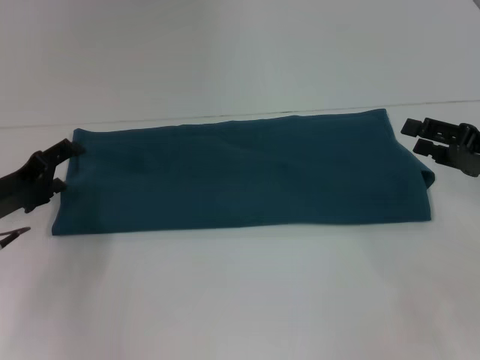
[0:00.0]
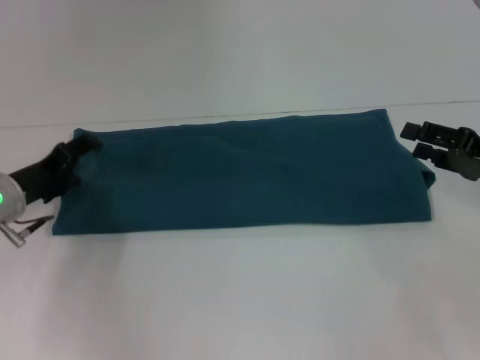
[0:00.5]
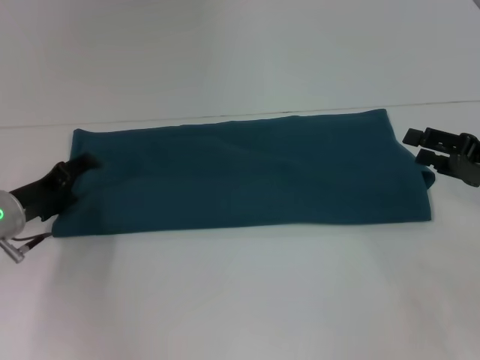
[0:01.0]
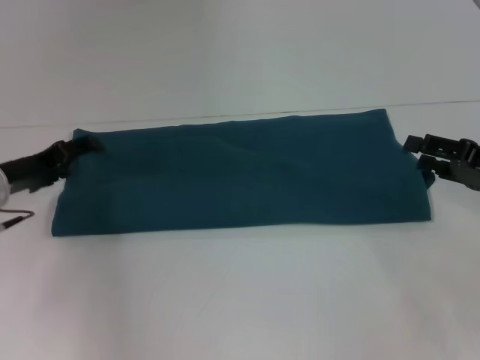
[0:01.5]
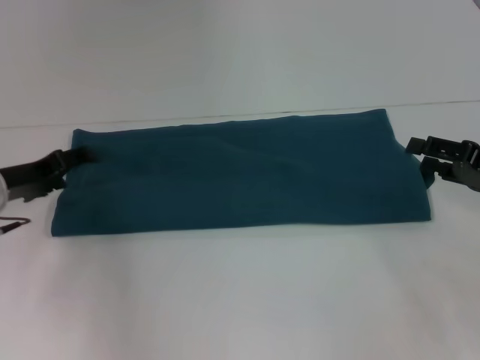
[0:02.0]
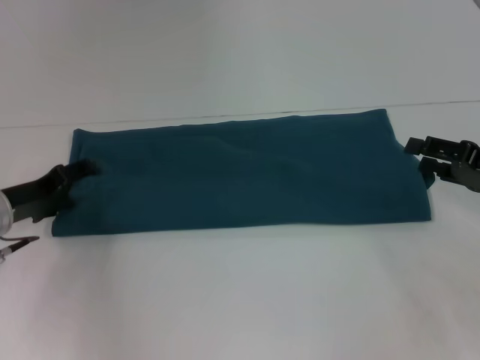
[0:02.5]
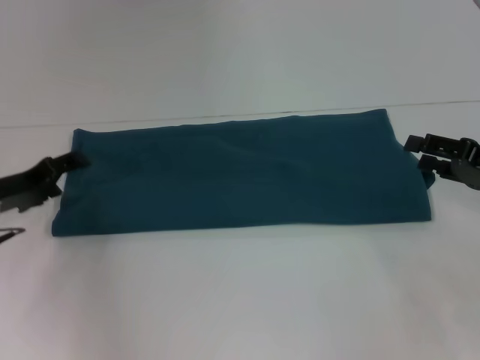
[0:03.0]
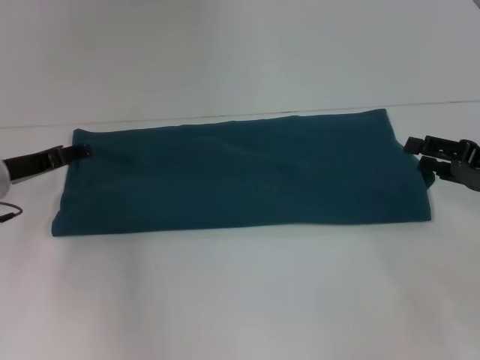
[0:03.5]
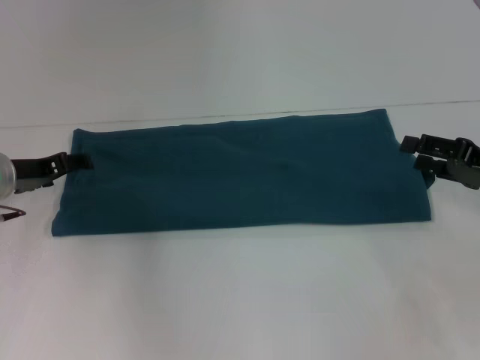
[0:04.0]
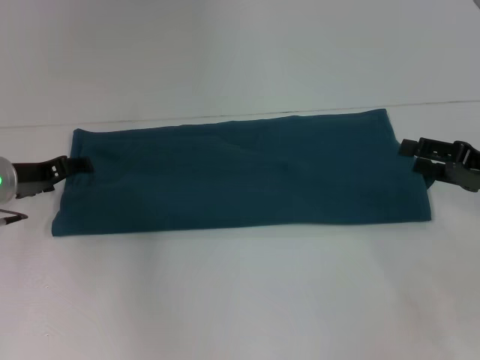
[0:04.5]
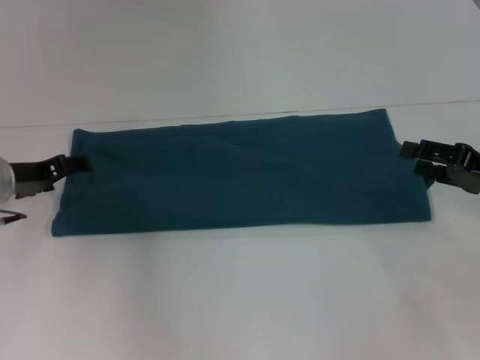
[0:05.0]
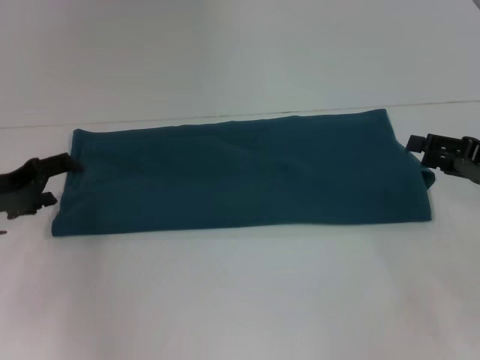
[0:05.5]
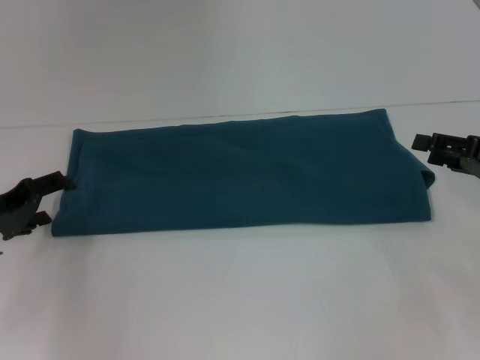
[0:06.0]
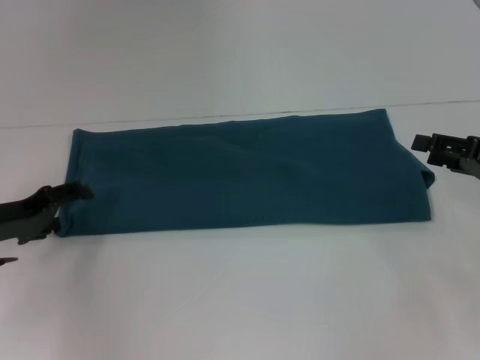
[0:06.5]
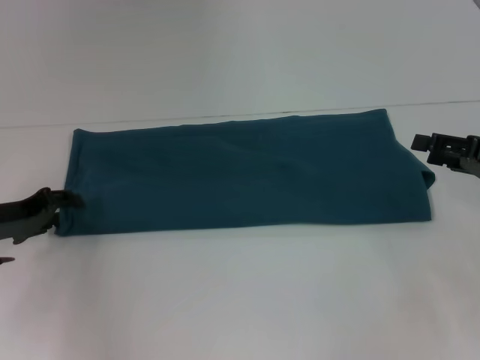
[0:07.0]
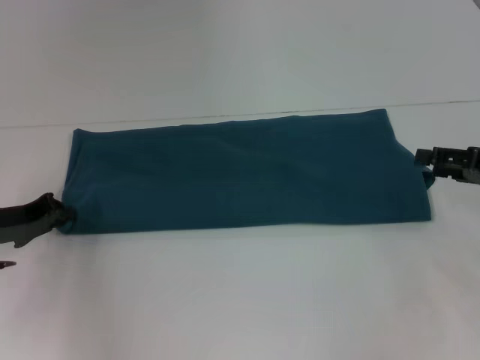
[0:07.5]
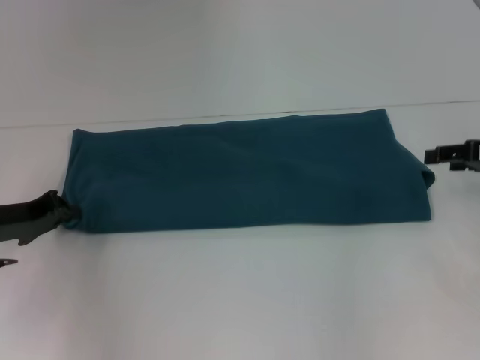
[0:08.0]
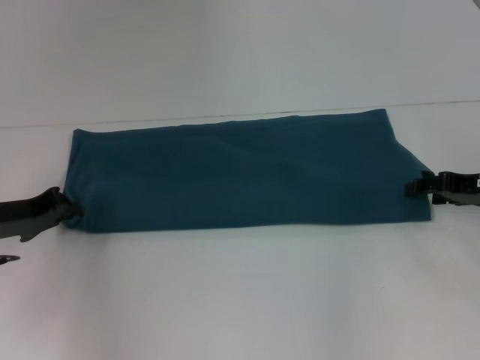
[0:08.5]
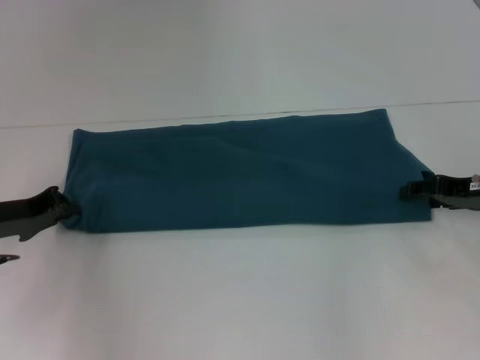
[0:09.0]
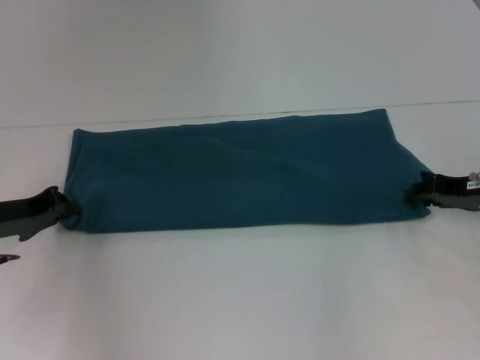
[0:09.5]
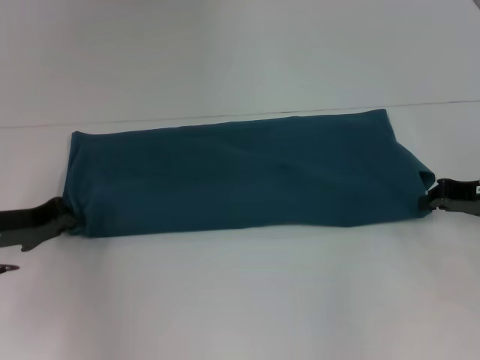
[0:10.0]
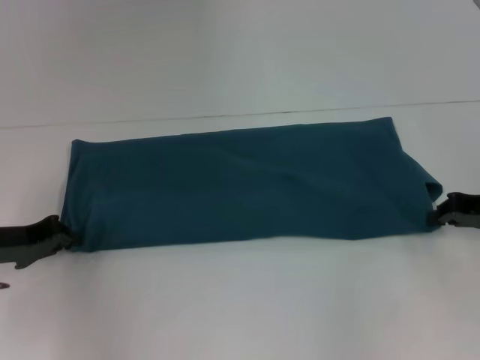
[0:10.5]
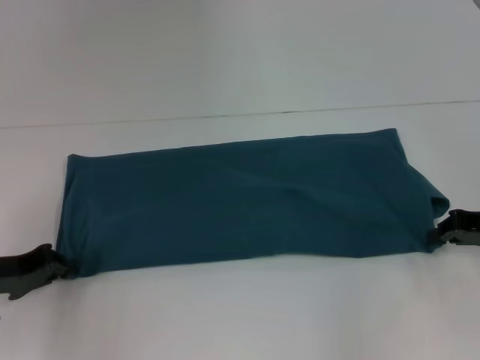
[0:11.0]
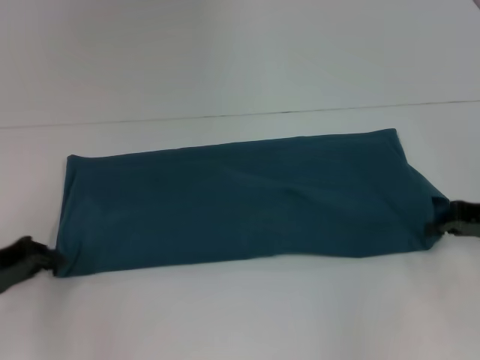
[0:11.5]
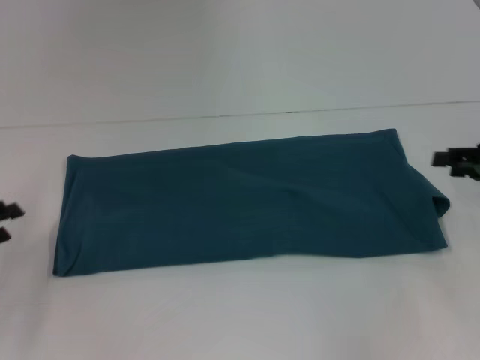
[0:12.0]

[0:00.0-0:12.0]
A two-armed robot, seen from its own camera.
Step, 0:00.0 to 0:11.5: Pull the clothes with your left hand.
Step, 0:00.0 to 0:11.5: Pull the clothes with your right hand.
0:02.0 to 0:04.0: There are only small adjustments of the grippers.
0:04.0 to 0:06.0: The left gripper goes approximately 5 cm backward.
0:06.0 to 0:08.0: The left gripper closes its fingers.
0:08.0 to 0:10.0: The right gripper closes up.
0:10.0 to 0:12.0: The left gripper shifts roughly 10 cm to the left and backward.

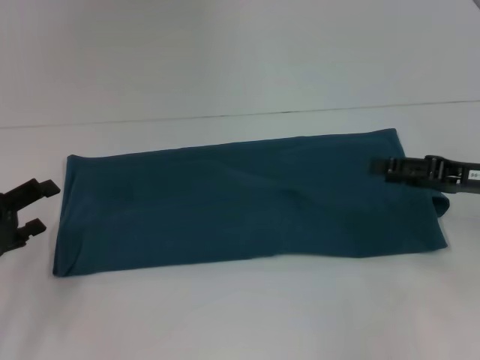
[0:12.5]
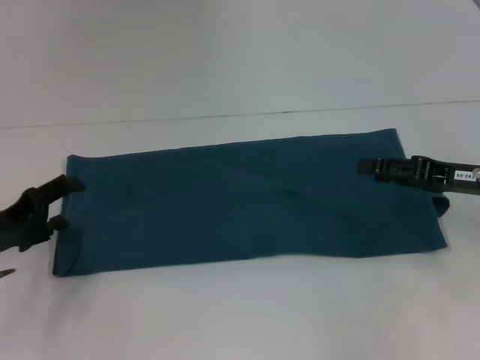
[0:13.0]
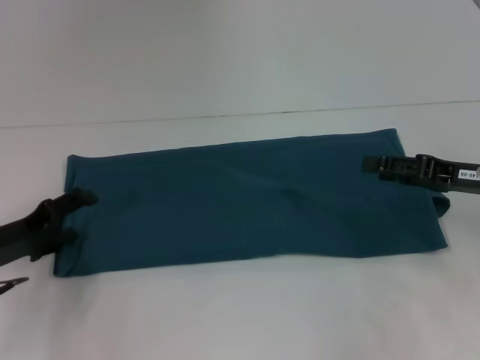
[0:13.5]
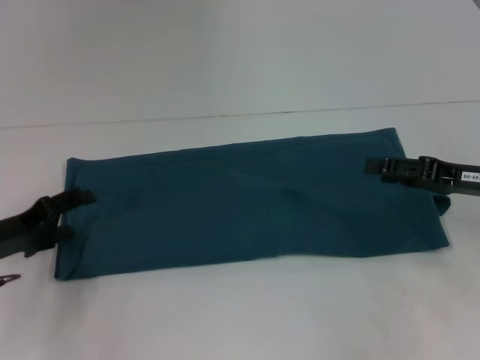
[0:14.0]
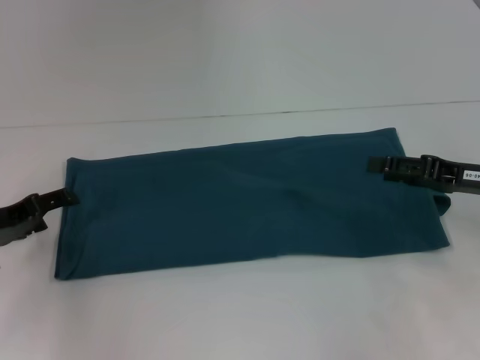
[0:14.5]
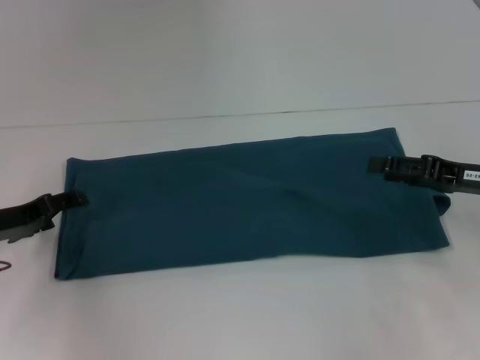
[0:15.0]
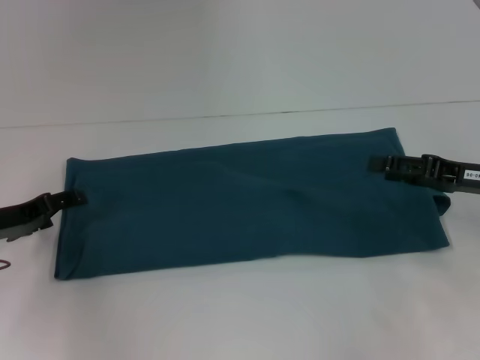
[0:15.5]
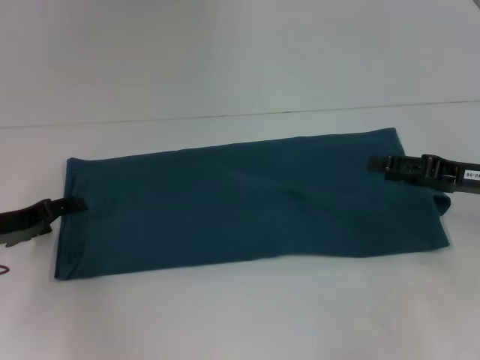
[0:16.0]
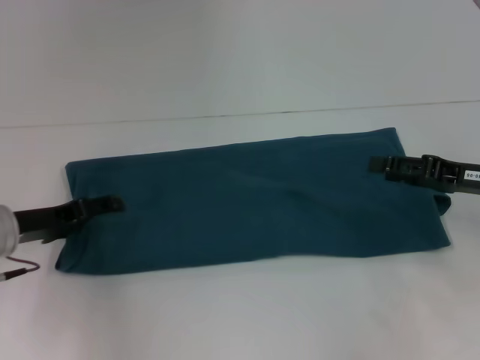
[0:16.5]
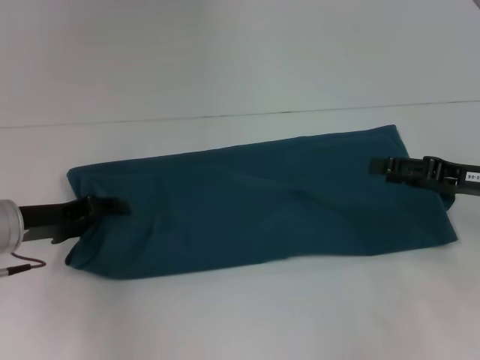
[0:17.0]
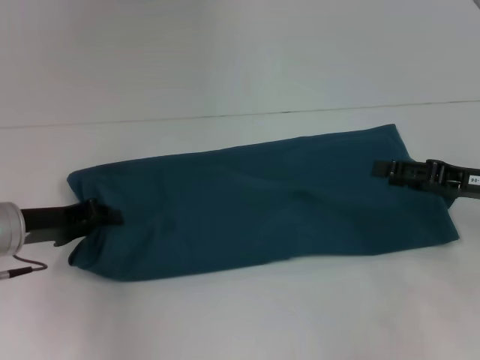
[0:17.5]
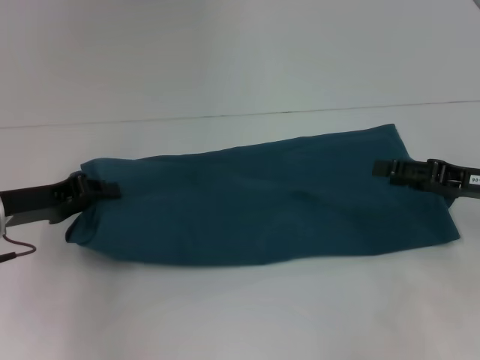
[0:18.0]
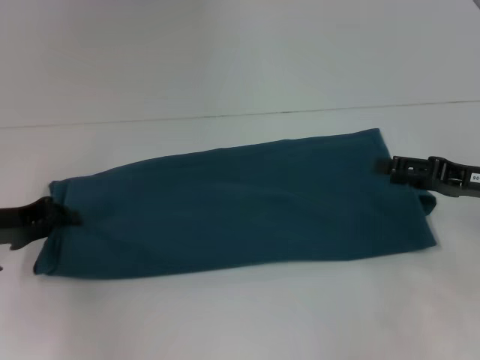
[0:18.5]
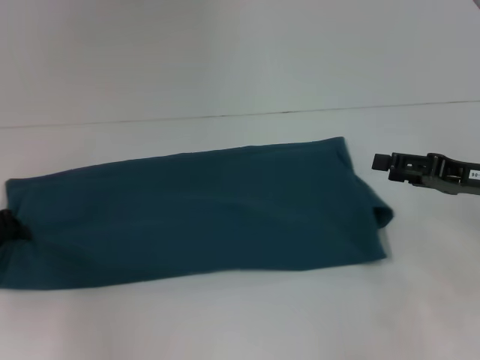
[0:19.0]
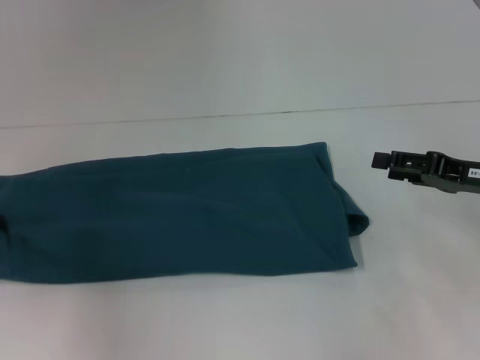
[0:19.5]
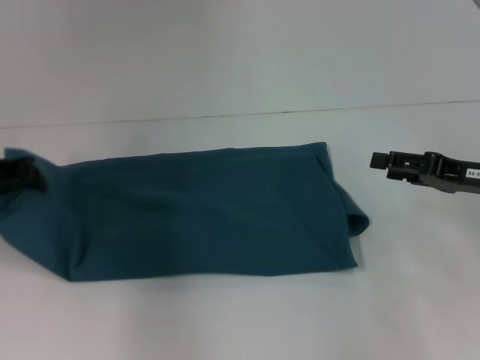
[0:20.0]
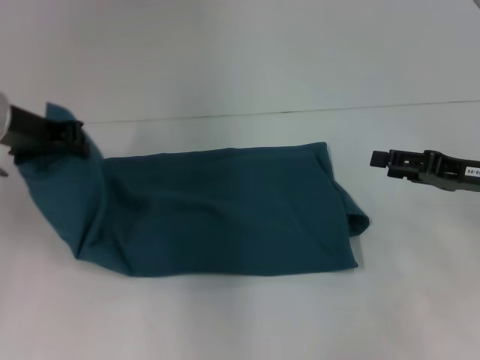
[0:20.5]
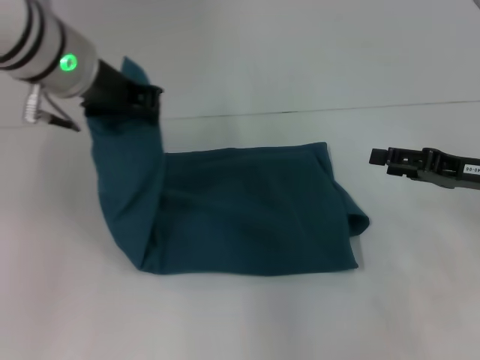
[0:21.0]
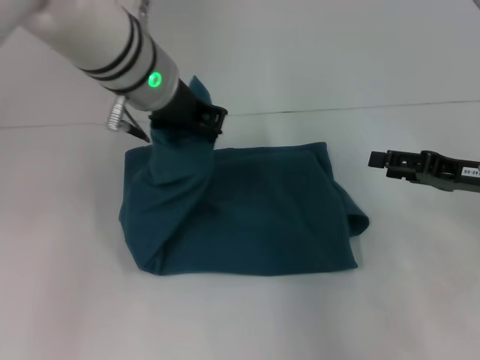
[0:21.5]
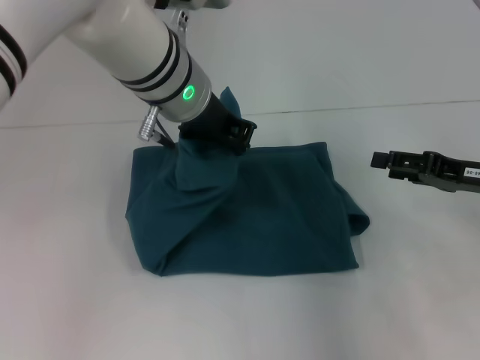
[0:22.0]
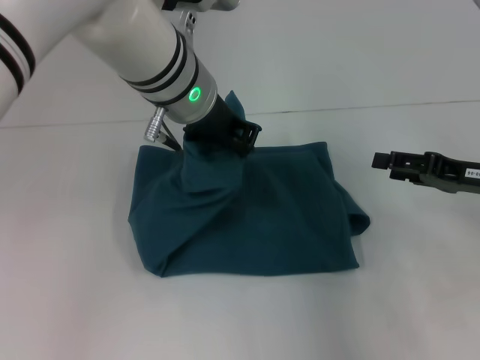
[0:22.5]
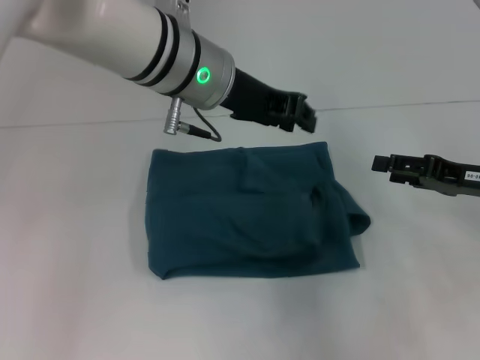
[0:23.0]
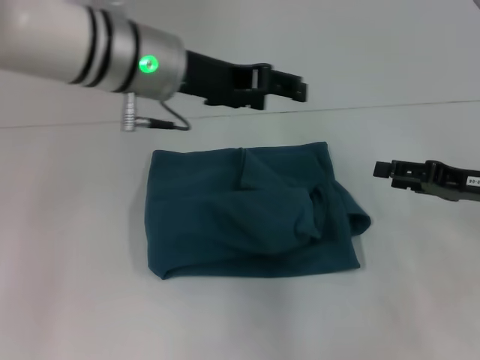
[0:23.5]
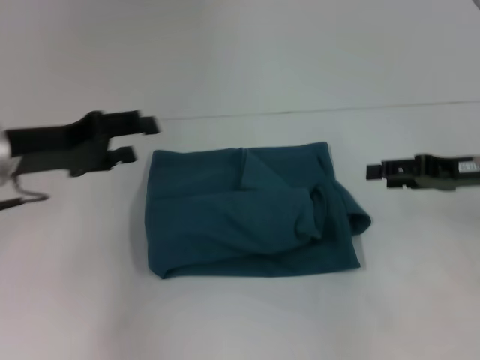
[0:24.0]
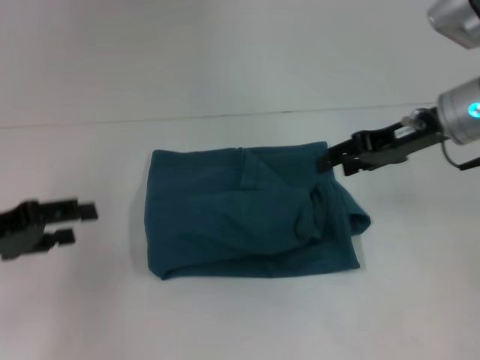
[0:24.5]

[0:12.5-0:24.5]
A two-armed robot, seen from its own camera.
Step, 0:12.5 to 0:23.0: Fold the clothes to the left.
0:12.5 to 0:14.5: The left gripper moves about 5 cm.
0:14.5 to 0:16.5: The grippers move only a little.
0:16.5 to 0:18.5: The left gripper closes.
0:18.5 to 0:20.5: The left gripper shifts roughly 15 cm upward and to the right.
0:20.5 to 0:22.5: The left gripper travels to the right by some 20 cm.
0:22.5 to 0:24.5: The left gripper shifts some 30 cm to the left and backward, and opens its fingers, while the right gripper is displaced to the left, forward and upward by roughly 15 cm.

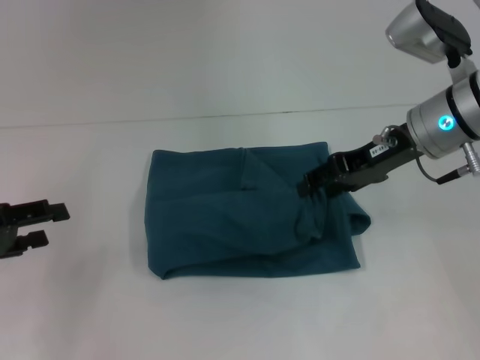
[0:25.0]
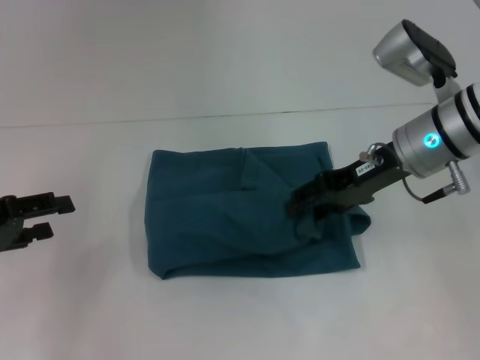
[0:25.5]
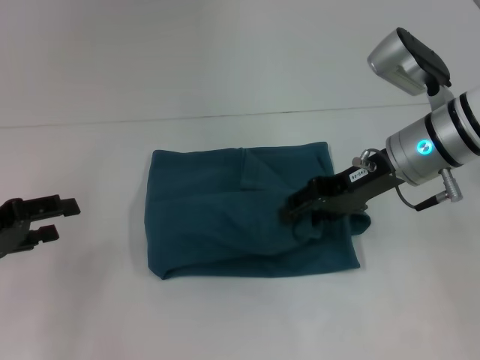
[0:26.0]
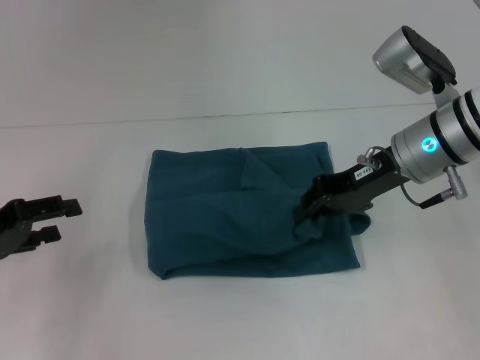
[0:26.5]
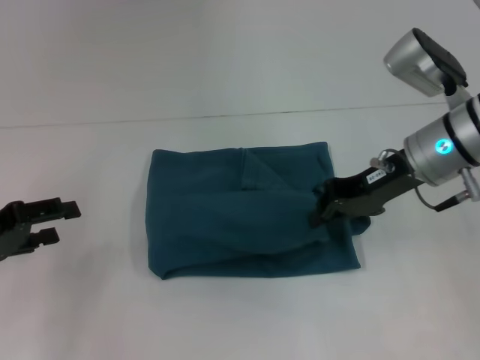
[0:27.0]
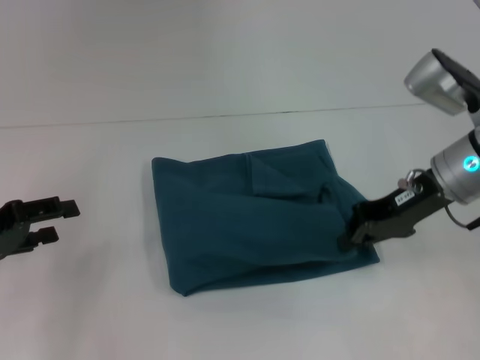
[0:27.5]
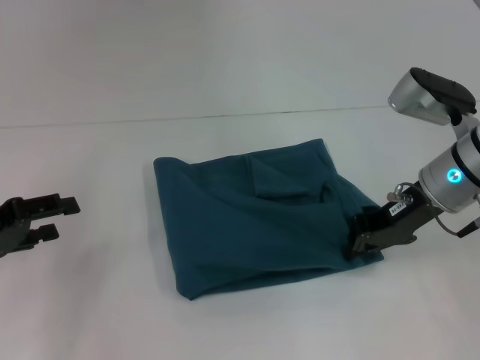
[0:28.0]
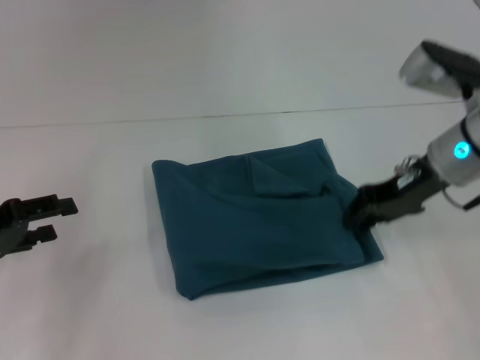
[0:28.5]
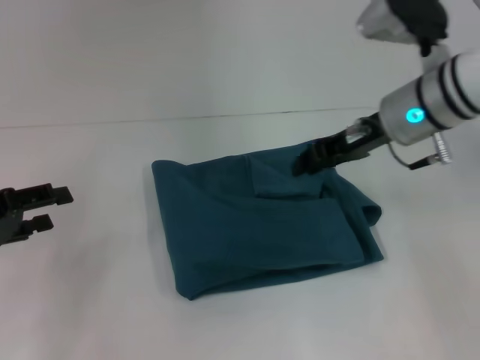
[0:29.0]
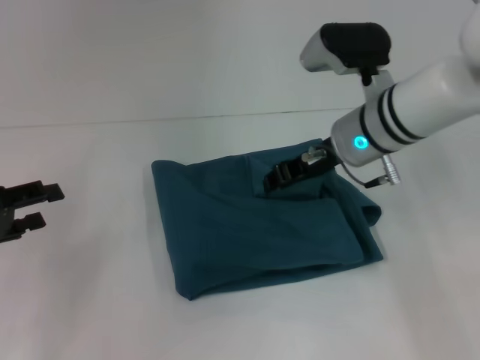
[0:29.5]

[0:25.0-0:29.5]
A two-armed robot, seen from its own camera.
0:25.0 to 0:27.0: The right gripper closes up.
0:27.0 to 0:29.5: The right gripper goes about 5 cm to the left.
